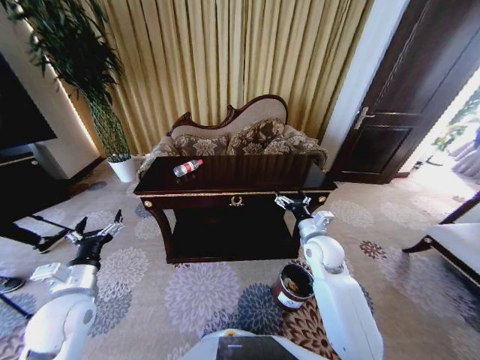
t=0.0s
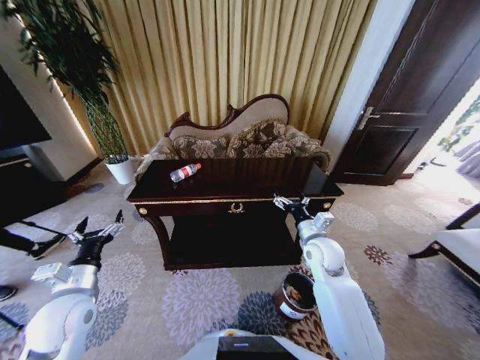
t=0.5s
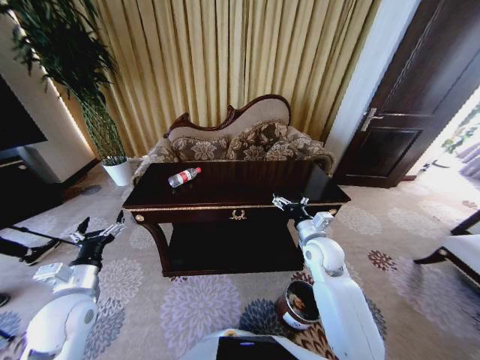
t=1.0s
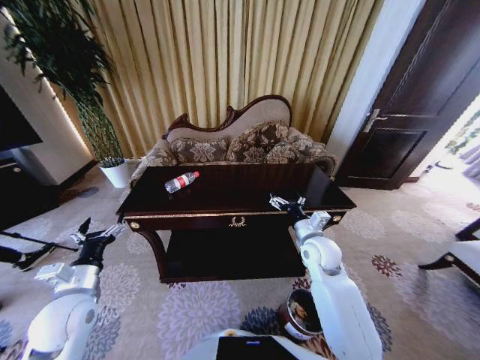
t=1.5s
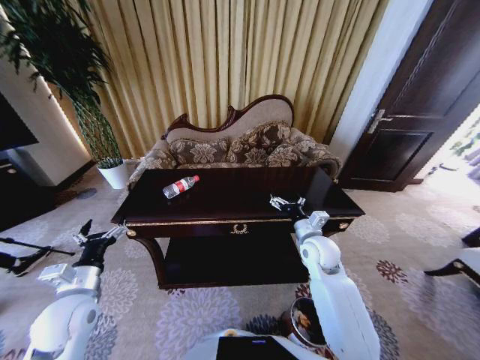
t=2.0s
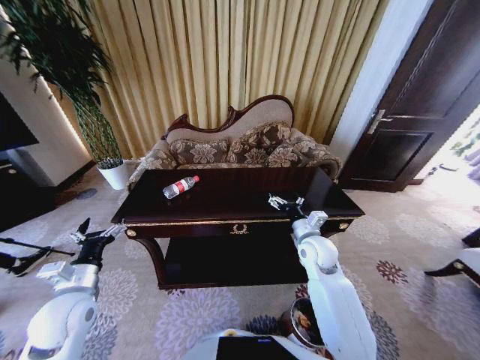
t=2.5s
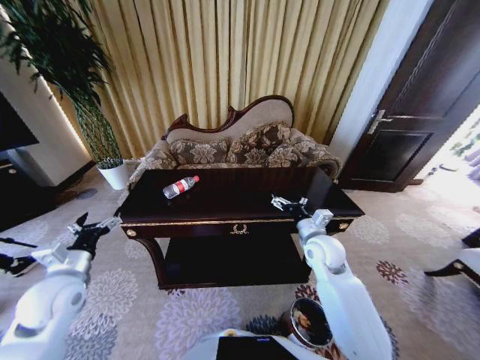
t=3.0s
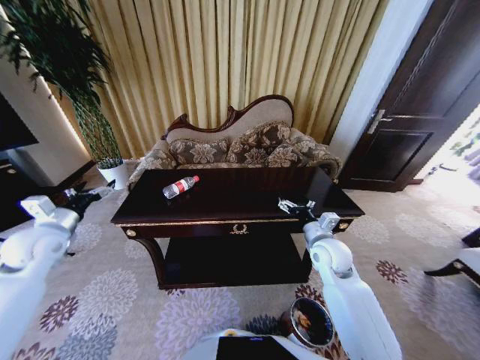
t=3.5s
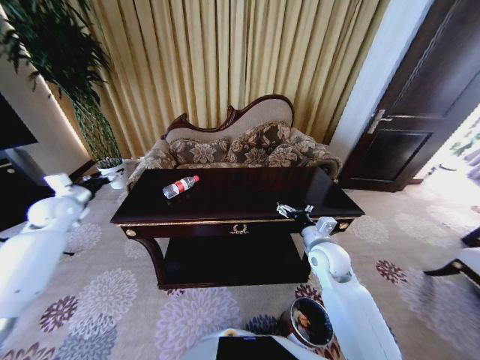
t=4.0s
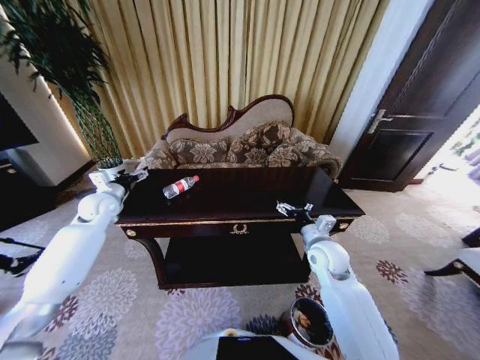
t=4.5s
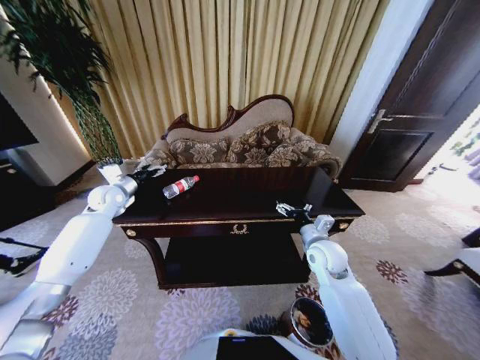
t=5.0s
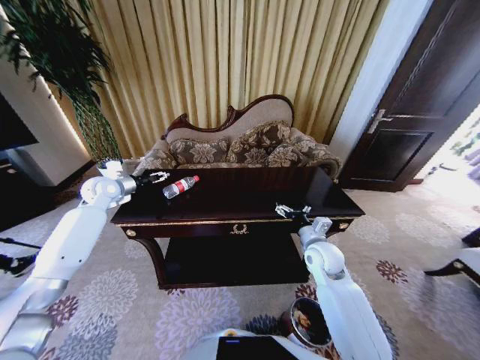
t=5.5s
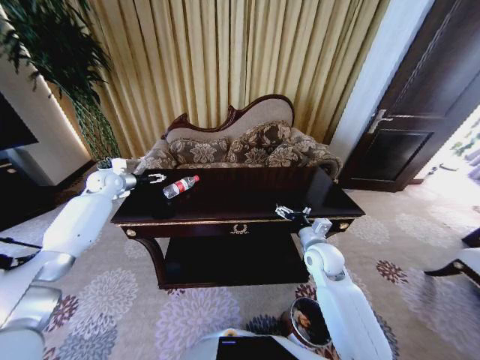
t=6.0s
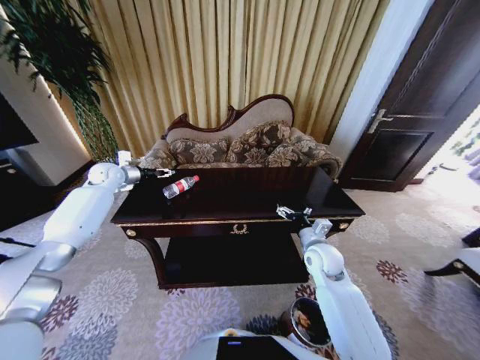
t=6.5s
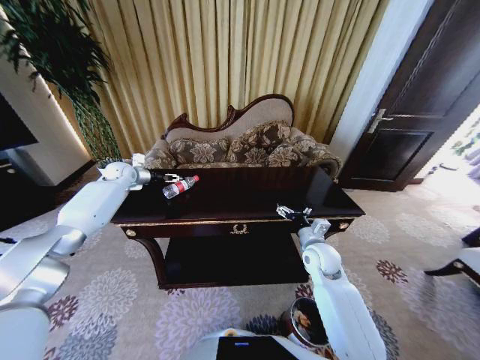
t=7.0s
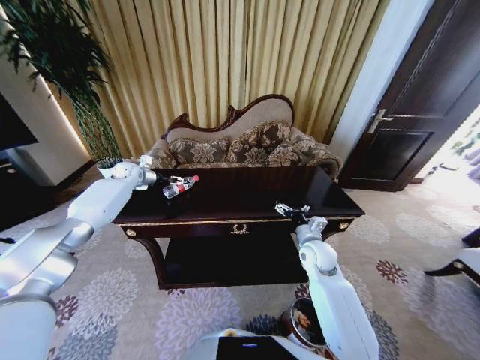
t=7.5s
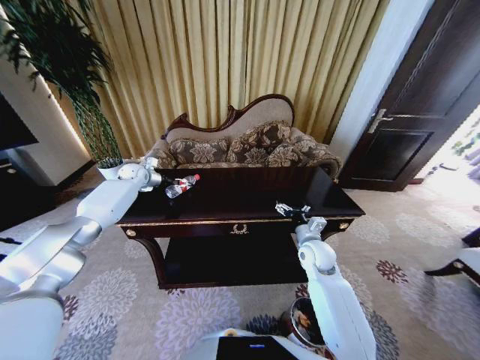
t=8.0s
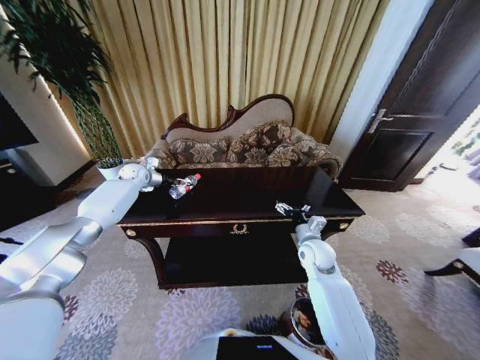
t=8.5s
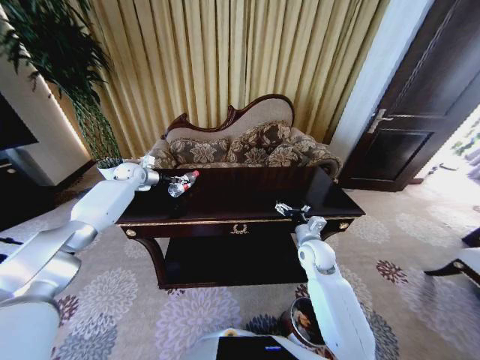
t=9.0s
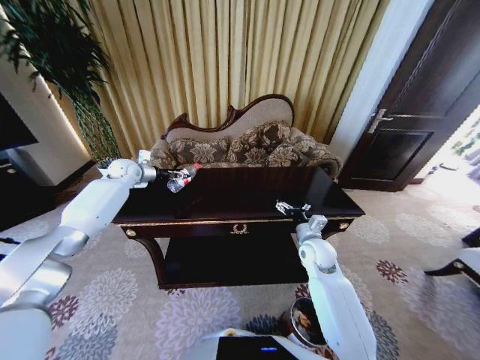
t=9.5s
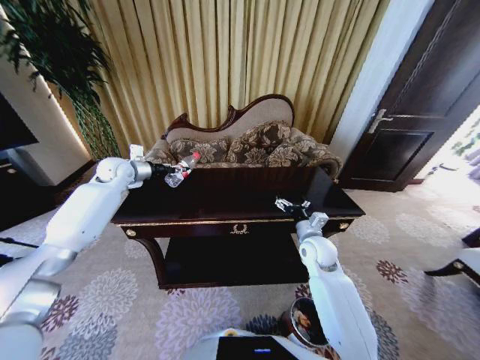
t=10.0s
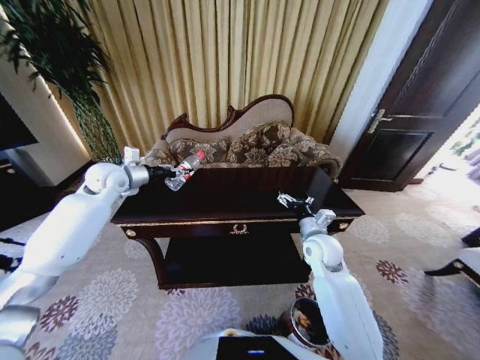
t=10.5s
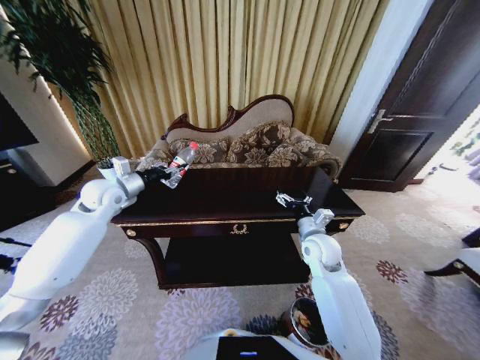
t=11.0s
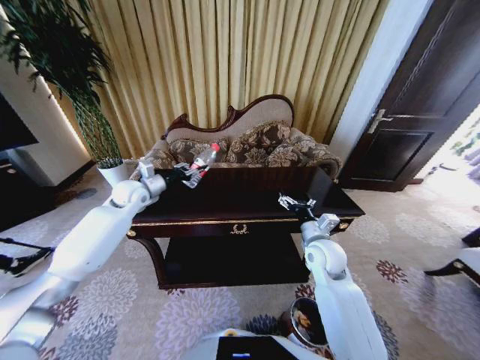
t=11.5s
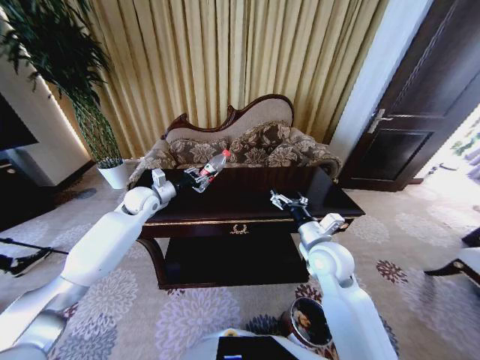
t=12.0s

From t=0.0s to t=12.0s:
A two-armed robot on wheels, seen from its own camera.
Task of the whole recording: Move to the front of the table and place the trash on the table into the trash bin.
From t=2.0s to t=4.0s: The left gripper is displaced forward and to the left by some 30 cm.
From t=4.0s to t=6.0s: The left gripper moves forward and to the right, approximately 15 cm.
From t=6.0s to t=8.0s: The left gripper shifts some 10 cm forward and to the right.
From t=8.0s to t=10.0s: The left gripper shifts about 10 cm backward and upward, and closes up.
From t=10.0s to t=12.0s: The left gripper moves to the right, downward and backward, some 10 cm. Meanwhile the right gripper is displaced upward and backward by approximately 10 cm.

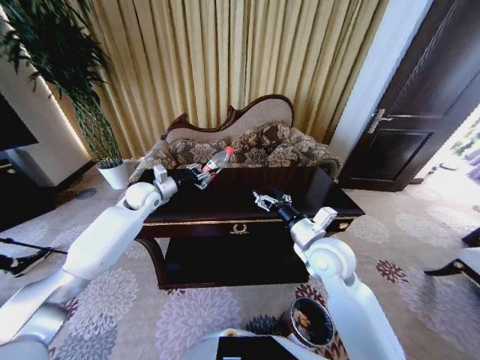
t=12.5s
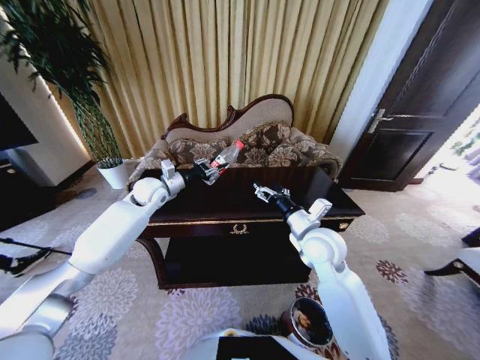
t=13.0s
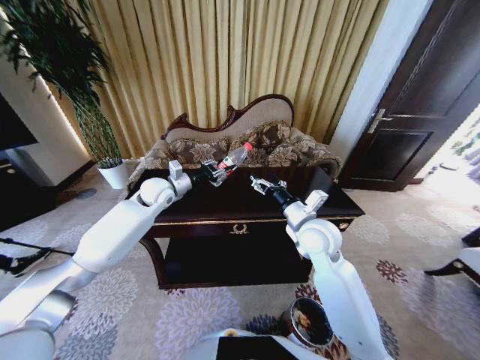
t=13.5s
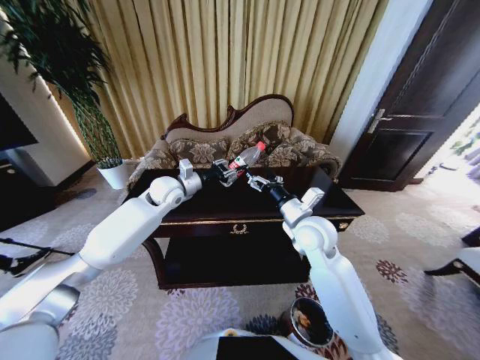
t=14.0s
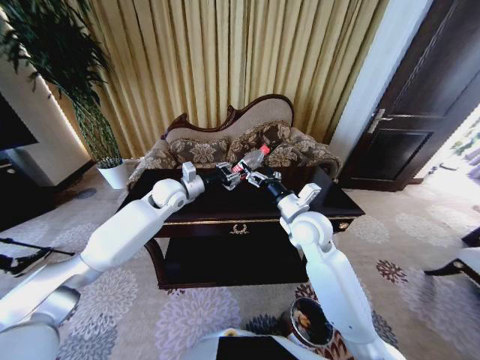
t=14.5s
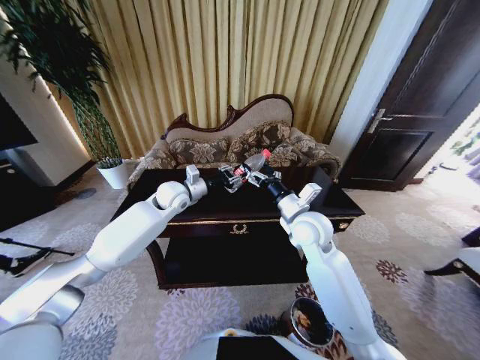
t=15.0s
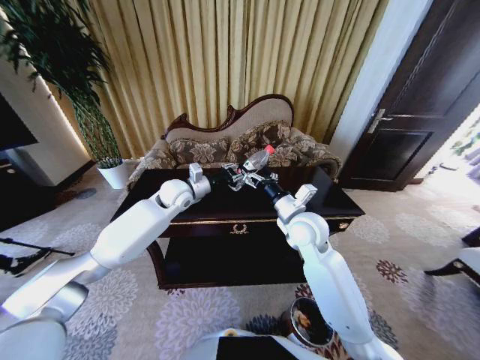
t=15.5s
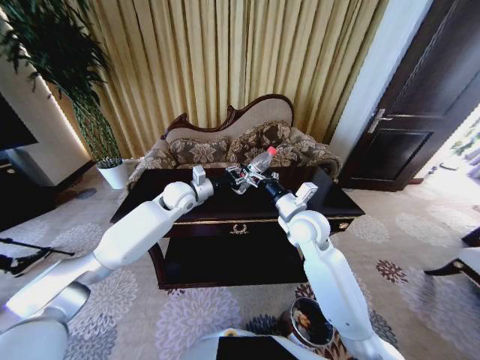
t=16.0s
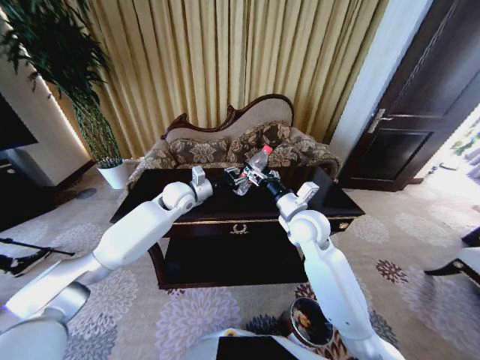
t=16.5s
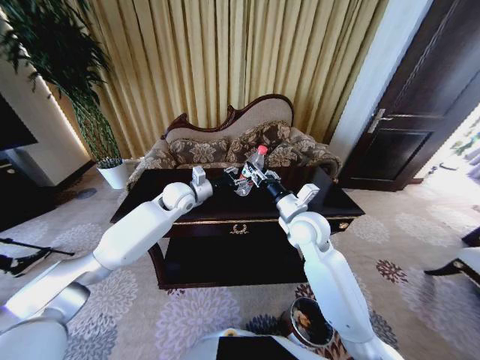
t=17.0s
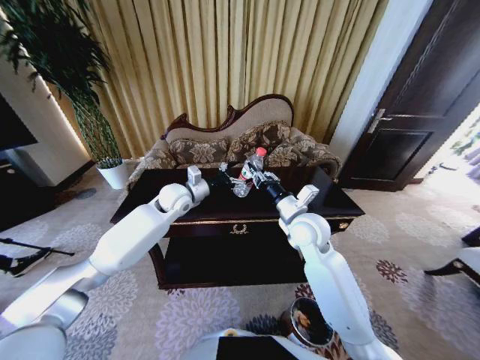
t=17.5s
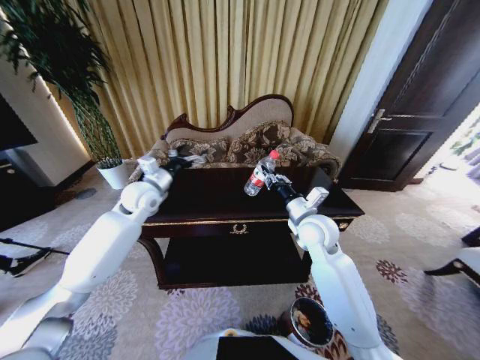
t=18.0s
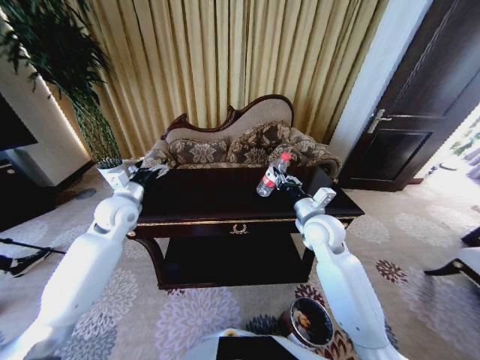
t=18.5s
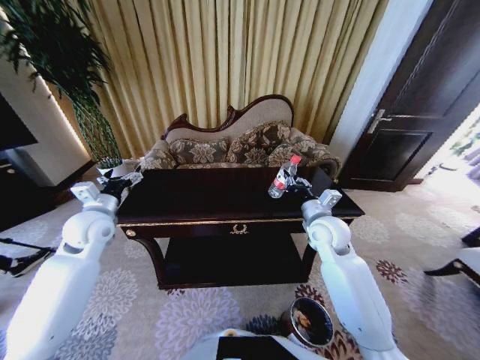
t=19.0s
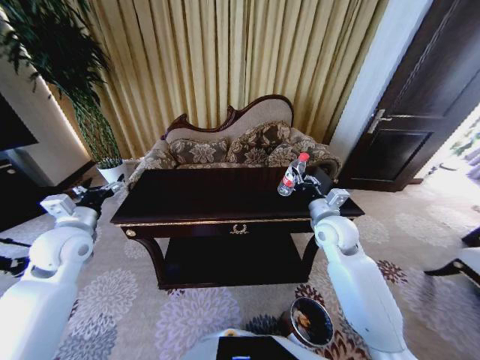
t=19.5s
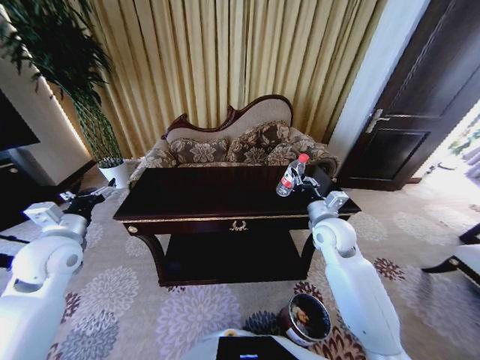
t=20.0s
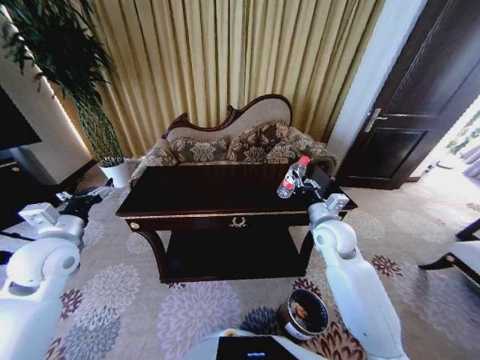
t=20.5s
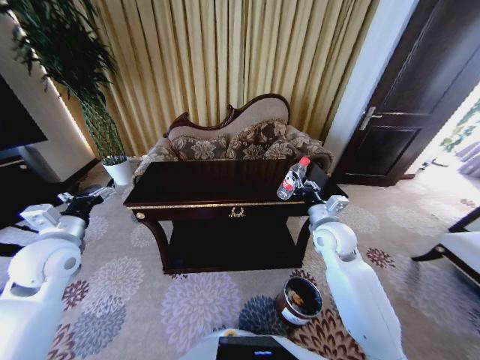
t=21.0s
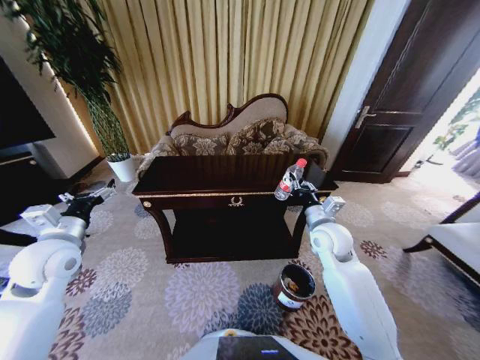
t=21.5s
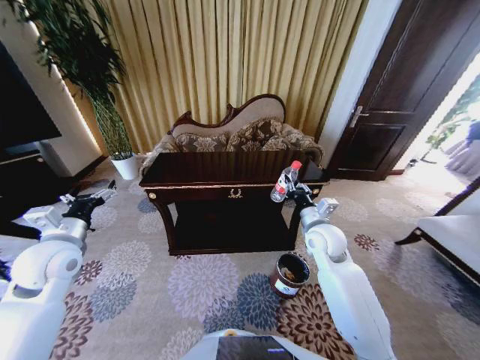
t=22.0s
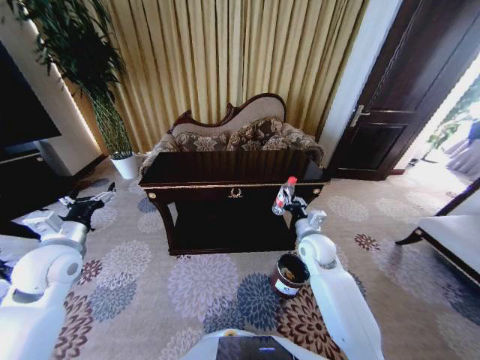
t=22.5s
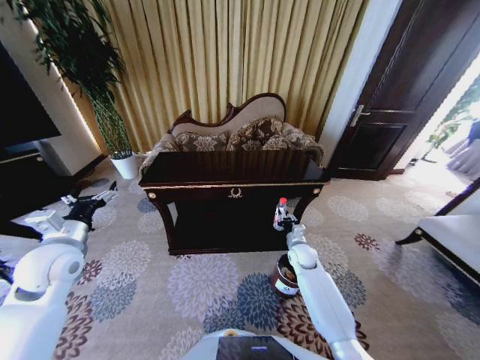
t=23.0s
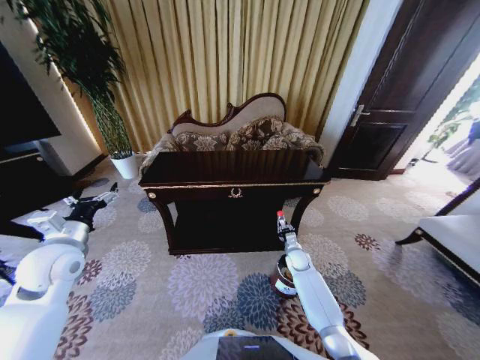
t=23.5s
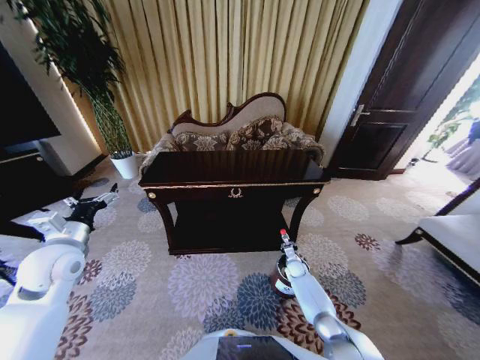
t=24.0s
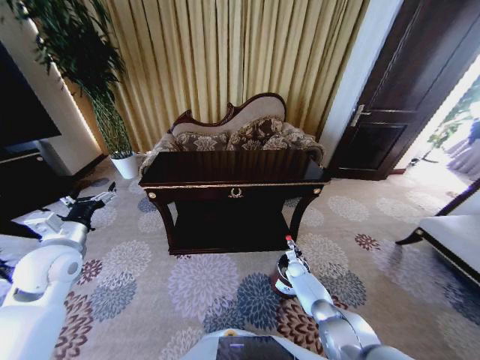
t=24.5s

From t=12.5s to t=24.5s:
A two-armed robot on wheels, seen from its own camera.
Task of the whole recording: Move to the front of the table and place the trash on the table into the trash bin.
From t=12.5s to t=14.5s: The right gripper travels forward by approximately 5 cm. Meanwhile the left gripper moves to the right, approximately 10 cm.
From t=14.5s to t=16.5s: The grippers move only a little.
From t=16.5s to t=18.5s: The left gripper moves to the left and backward, some 15 cm, and opens up. Meanwhile the right gripper changes place by some 5 cm, and closes up.
From t=18.5s to t=20.5s: The left gripper moves backward and to the left, some 15 cm.
From t=20.5s to t=22.5s: The right gripper is displaced downward by some 10 cm.
From t=22.5s to t=24.5s: The right gripper travels downward by about 30 cm.

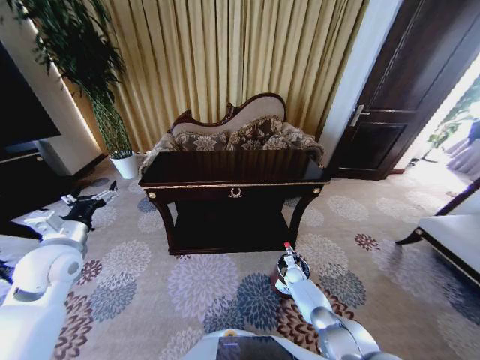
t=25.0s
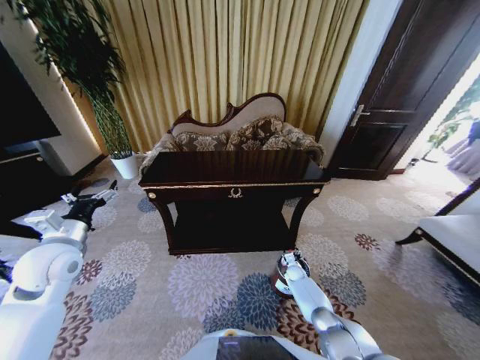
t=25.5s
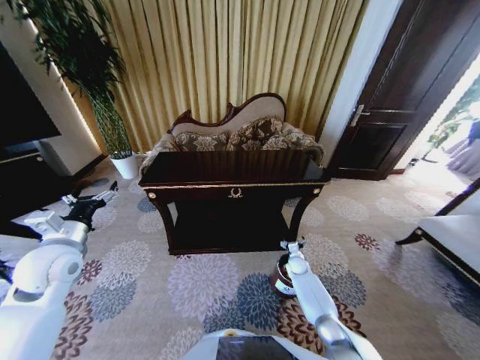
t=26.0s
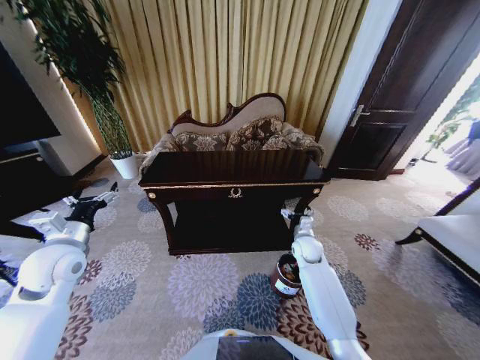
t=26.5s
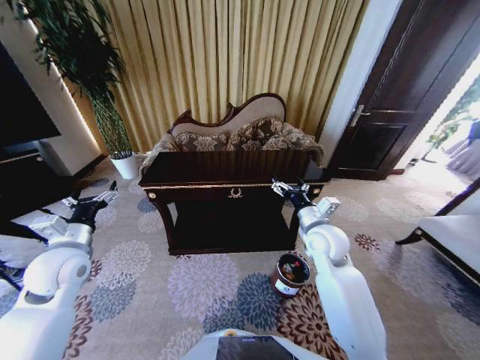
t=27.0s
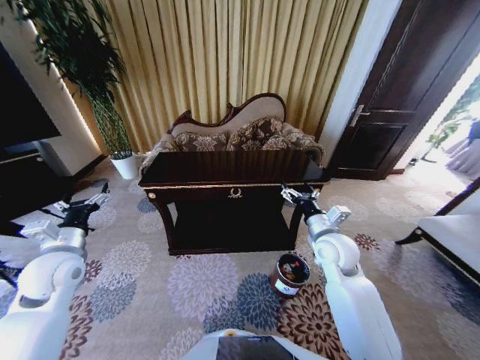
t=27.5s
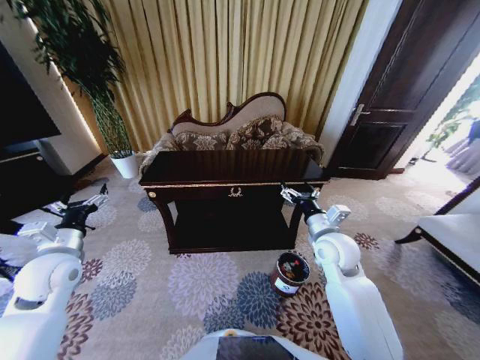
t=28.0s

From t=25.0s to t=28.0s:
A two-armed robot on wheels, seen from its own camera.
Task of the whole recording: Move to the front of the table and place the trash on the table into the trash bin.
From t=25.0s to t=26.5s: The right gripper is displaced upward by approximately 25 cm, and opens up.
From t=26.5s to t=28.0s: The right gripper shifts about 20 cm upward and backward.
